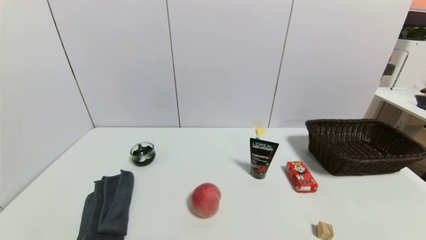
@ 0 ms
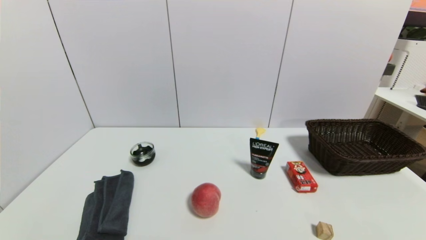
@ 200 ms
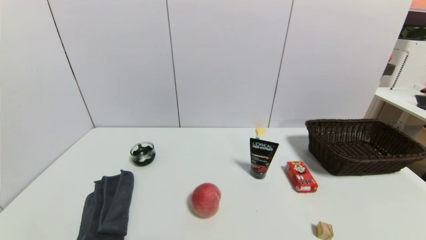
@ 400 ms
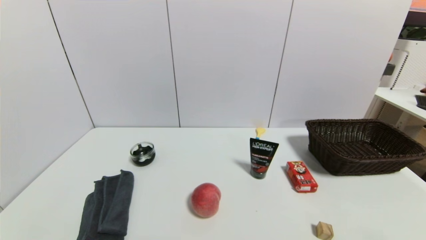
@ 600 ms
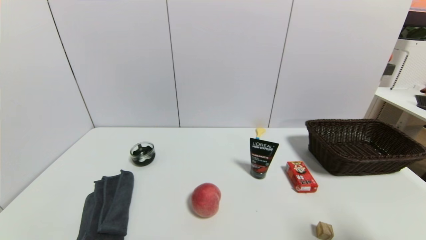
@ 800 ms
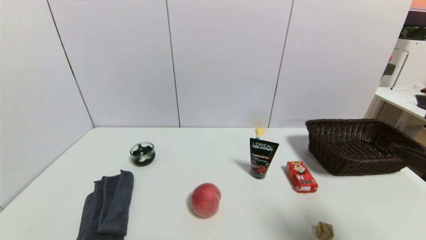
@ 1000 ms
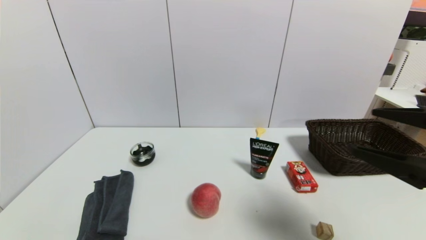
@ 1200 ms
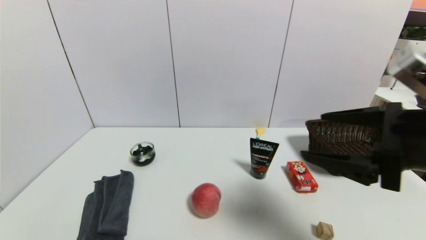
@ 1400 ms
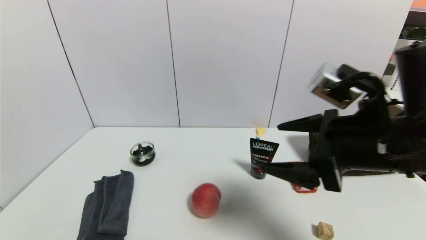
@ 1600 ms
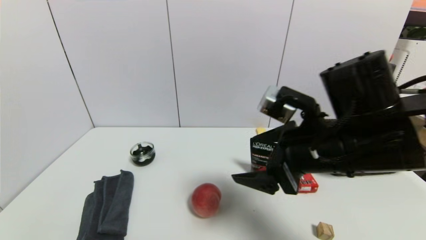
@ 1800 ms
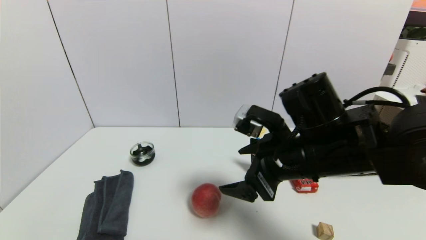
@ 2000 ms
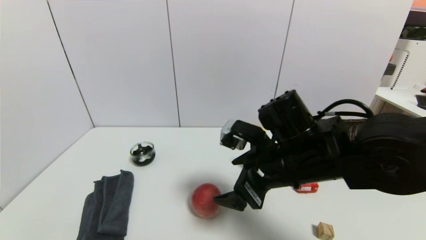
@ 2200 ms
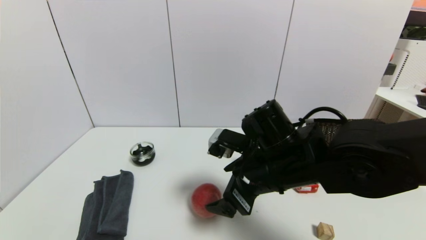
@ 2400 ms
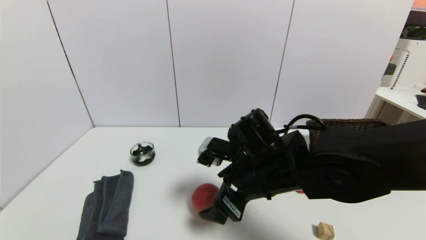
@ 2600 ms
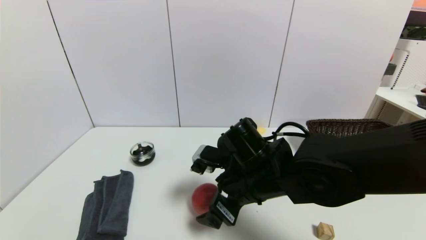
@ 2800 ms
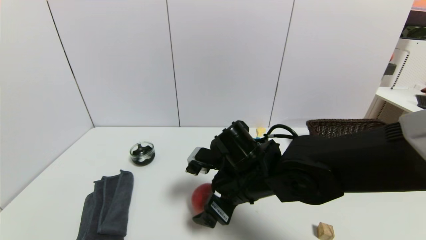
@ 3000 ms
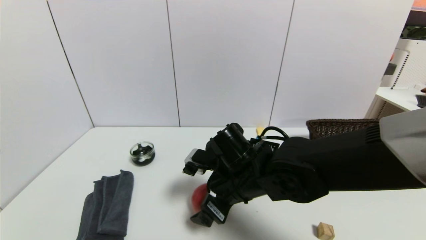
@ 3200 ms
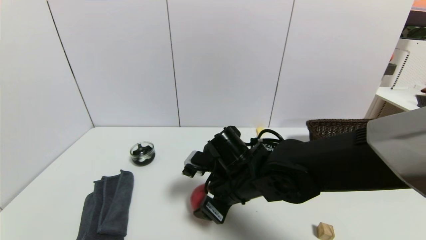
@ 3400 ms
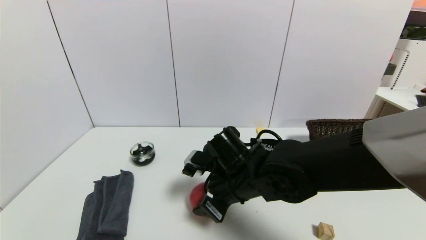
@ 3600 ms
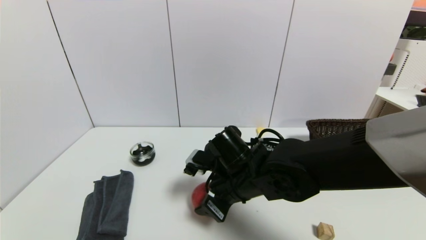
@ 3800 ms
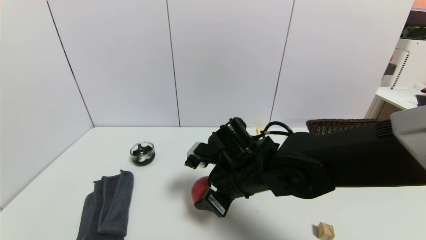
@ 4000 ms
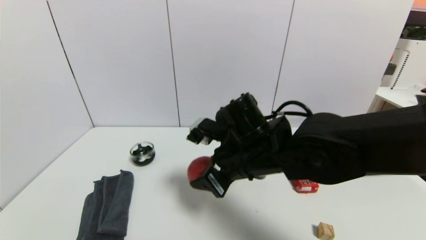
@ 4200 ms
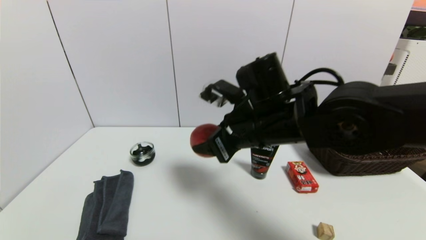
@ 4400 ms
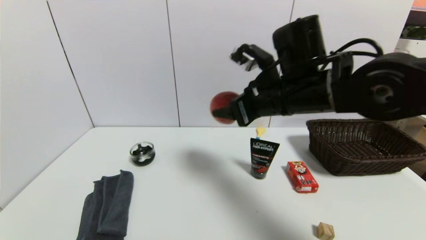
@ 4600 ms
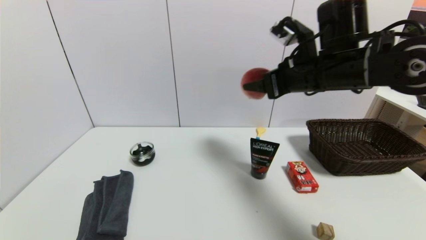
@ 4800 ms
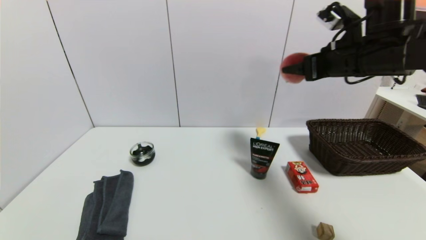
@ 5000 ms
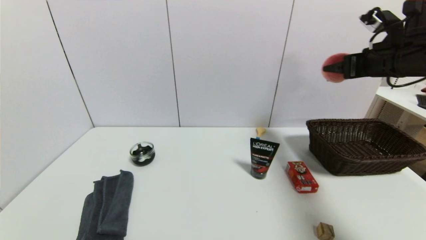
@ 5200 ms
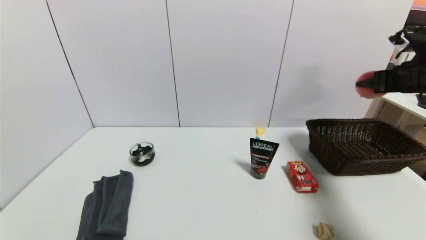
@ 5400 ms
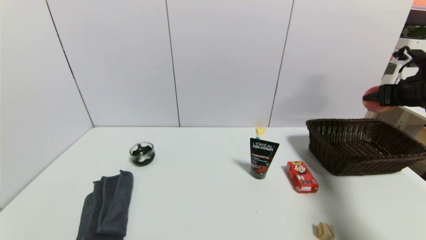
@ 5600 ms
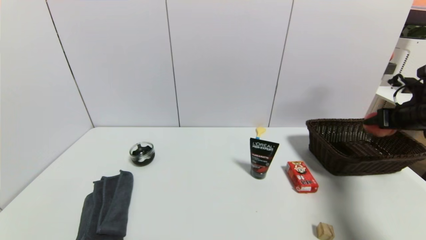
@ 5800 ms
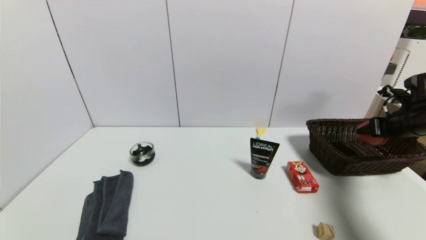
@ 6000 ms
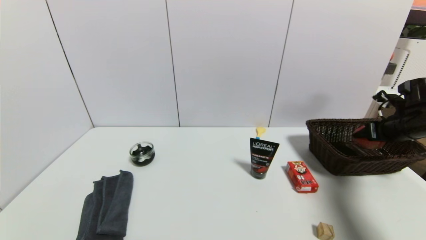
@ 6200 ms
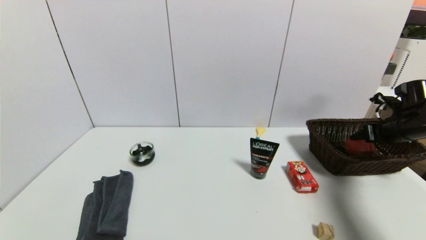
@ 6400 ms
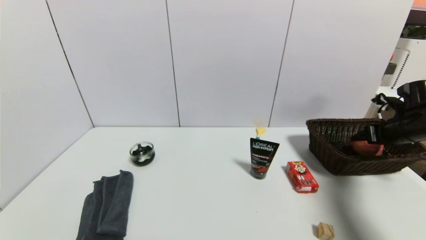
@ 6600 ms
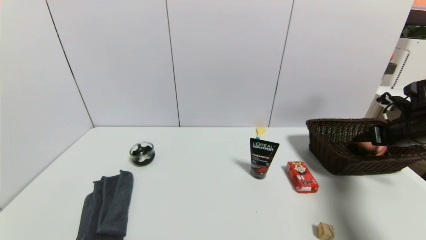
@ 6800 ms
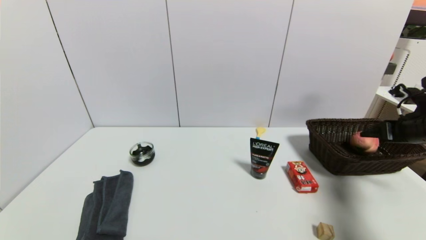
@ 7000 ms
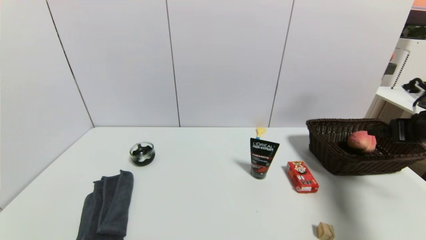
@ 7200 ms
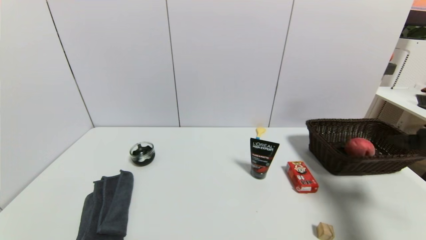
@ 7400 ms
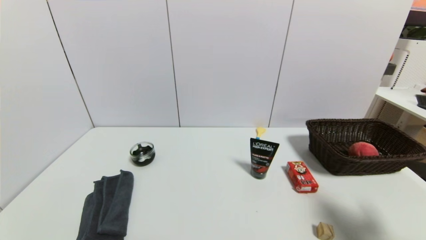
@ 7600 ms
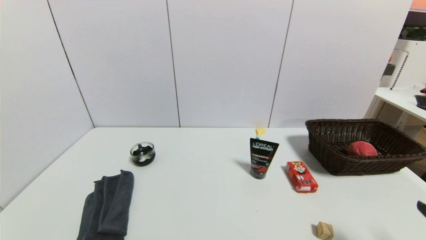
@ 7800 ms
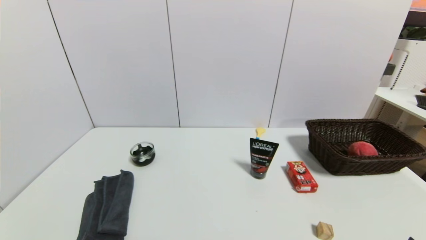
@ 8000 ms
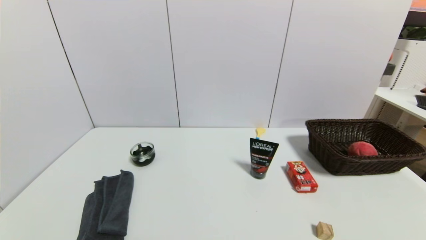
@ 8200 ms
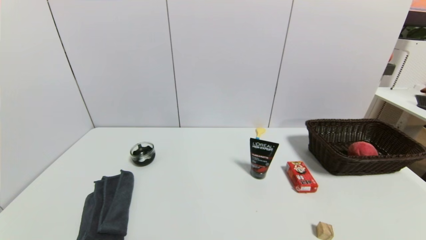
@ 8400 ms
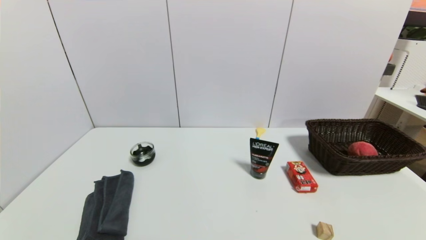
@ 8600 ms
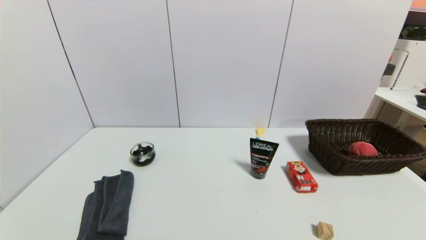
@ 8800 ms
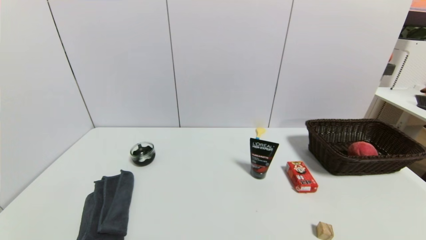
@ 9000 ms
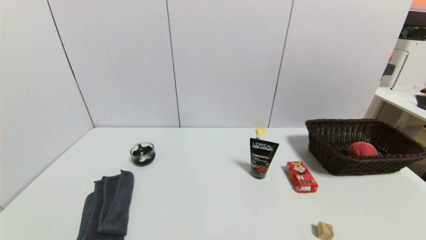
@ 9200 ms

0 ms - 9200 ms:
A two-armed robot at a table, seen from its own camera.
Task of the whole recording: use a gripper to pick the target object and place on the brown basket.
Step, 0 ms - 3600 ms: Grasp the peach slice with the right gripper.
Step, 3800 ms - 7200 ms: Place the peach slice into the basket with the right gripper.
0 ms - 1600 ms: The right gripper is displaced forward, upward and to the left by about 30 cm.
1600 ms - 3000 ms: The right gripper travels to the left, downward and forward by some 20 cm.
3000 ms - 4600 ms: The right gripper heads upward and to the right, covering about 15 cm, and closes up.
4600 ms - 6200 ms: The right gripper moves to the right, some 35 cm.
6200 ms - 7600 ms: The right gripper heads backward, covering some 25 cm, and opens its fingers.
7600 ms - 9200 ms: The right gripper travels downward and backward by about 20 cm.
